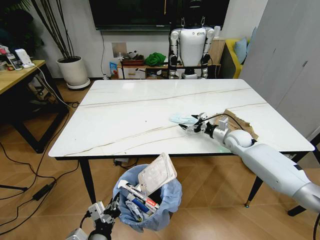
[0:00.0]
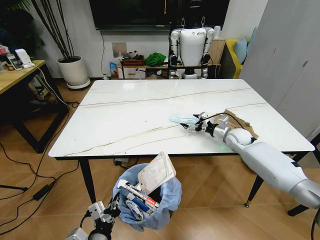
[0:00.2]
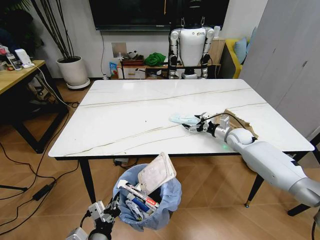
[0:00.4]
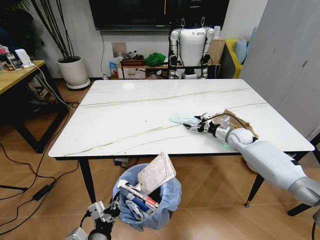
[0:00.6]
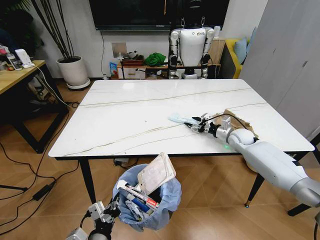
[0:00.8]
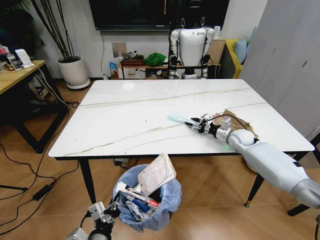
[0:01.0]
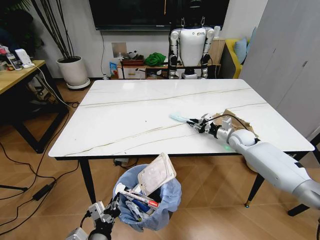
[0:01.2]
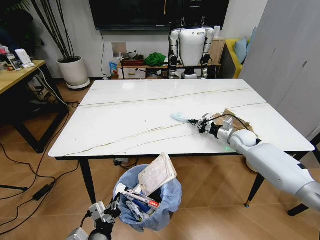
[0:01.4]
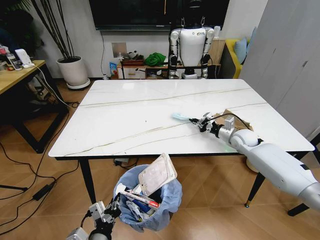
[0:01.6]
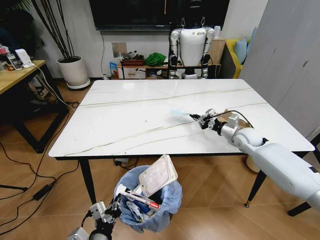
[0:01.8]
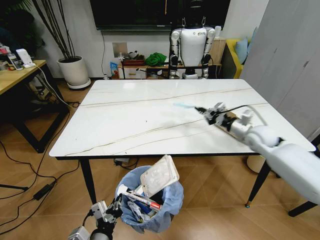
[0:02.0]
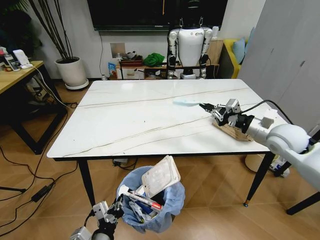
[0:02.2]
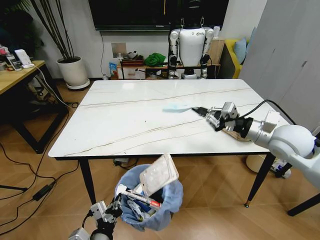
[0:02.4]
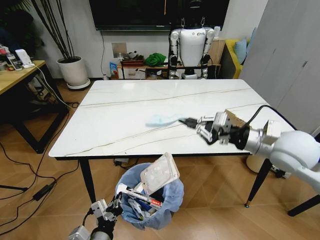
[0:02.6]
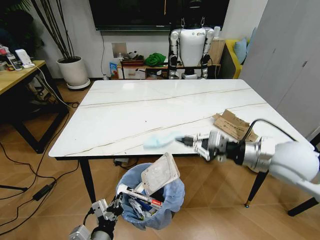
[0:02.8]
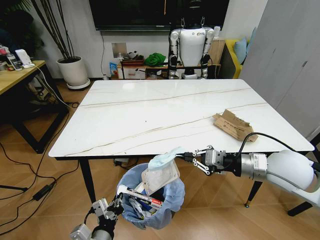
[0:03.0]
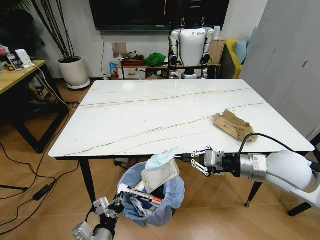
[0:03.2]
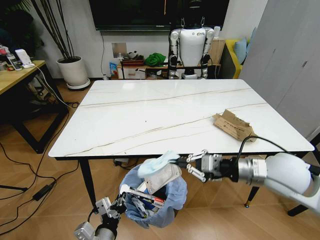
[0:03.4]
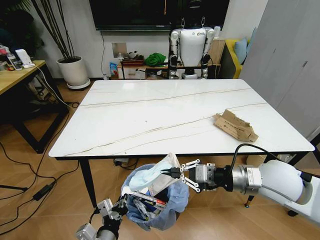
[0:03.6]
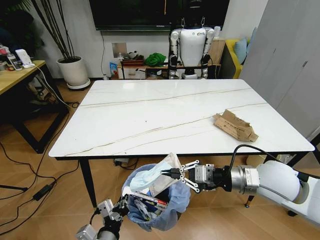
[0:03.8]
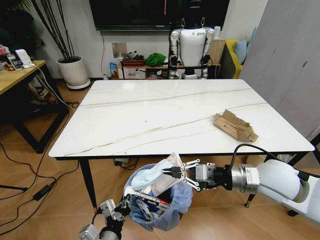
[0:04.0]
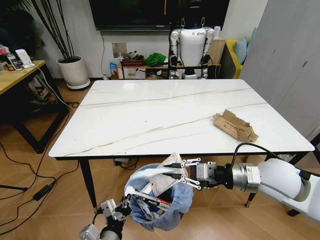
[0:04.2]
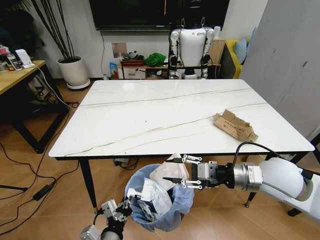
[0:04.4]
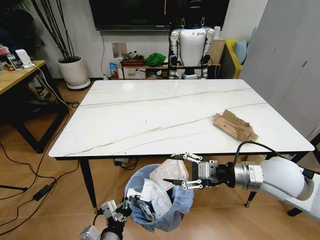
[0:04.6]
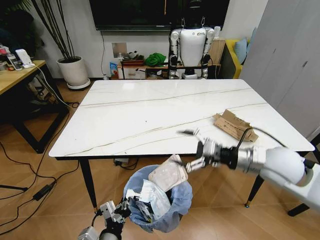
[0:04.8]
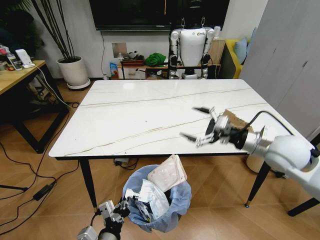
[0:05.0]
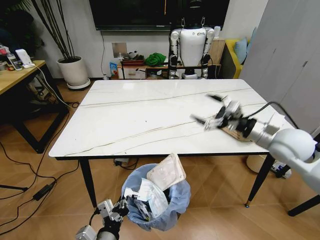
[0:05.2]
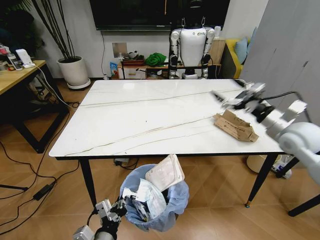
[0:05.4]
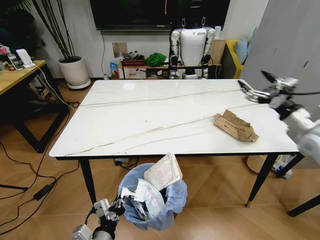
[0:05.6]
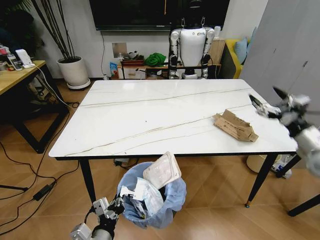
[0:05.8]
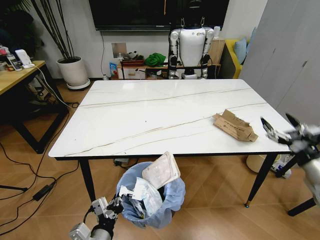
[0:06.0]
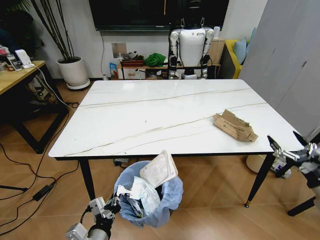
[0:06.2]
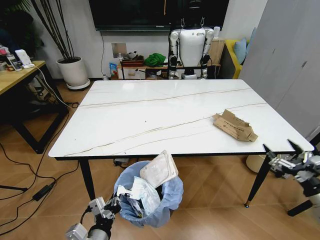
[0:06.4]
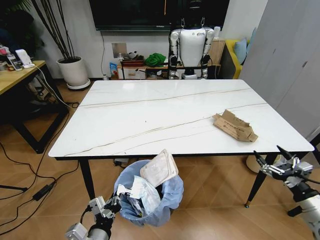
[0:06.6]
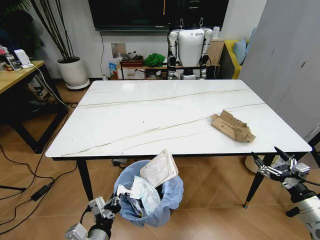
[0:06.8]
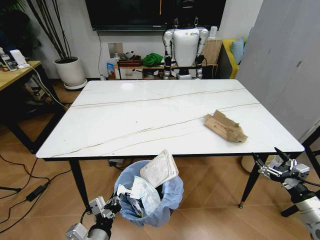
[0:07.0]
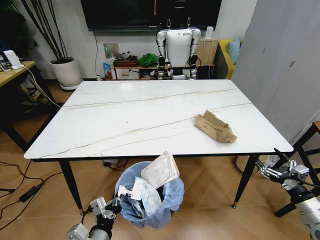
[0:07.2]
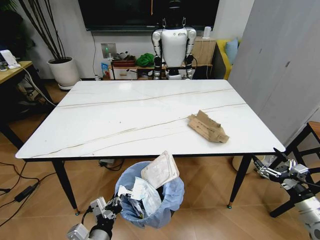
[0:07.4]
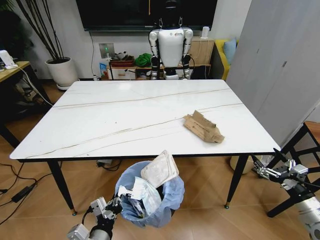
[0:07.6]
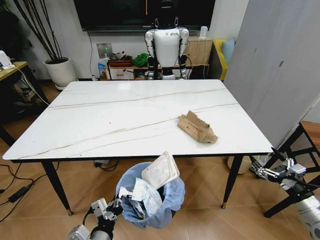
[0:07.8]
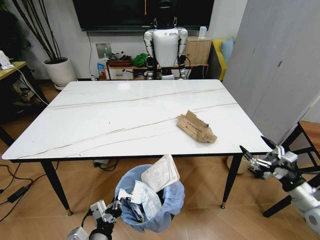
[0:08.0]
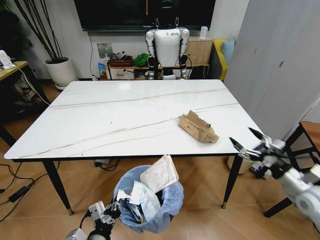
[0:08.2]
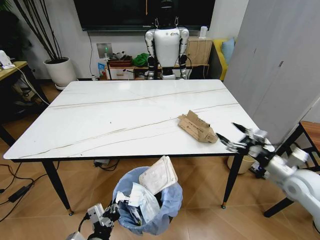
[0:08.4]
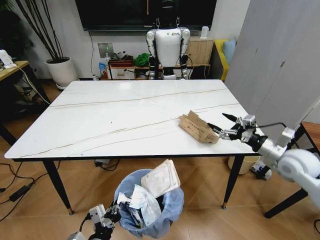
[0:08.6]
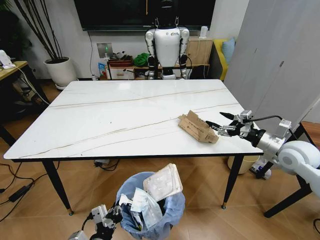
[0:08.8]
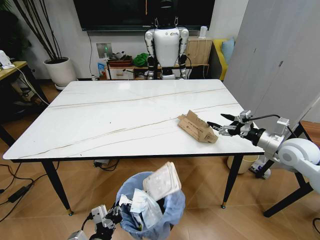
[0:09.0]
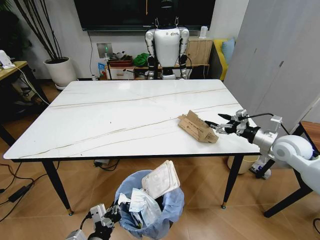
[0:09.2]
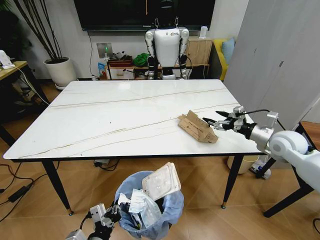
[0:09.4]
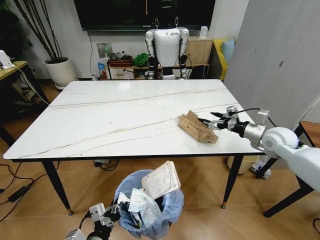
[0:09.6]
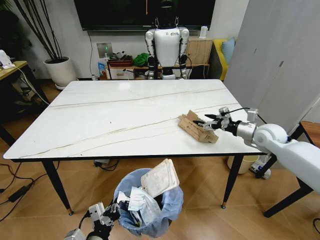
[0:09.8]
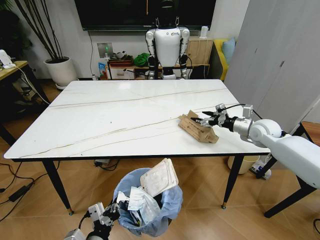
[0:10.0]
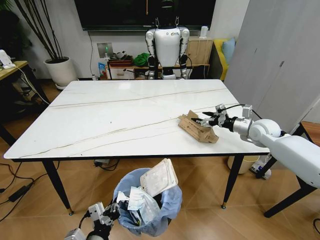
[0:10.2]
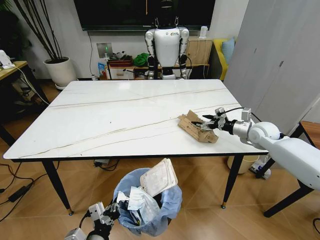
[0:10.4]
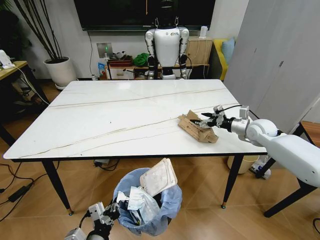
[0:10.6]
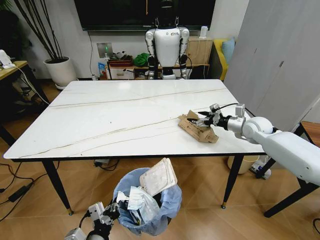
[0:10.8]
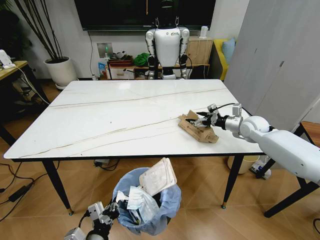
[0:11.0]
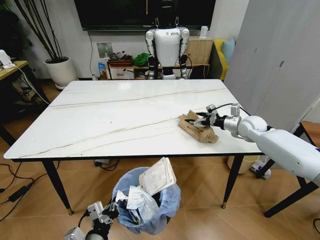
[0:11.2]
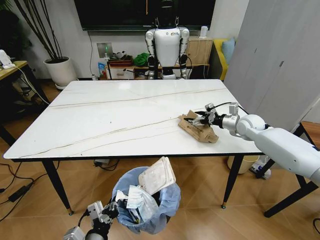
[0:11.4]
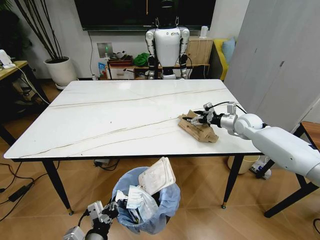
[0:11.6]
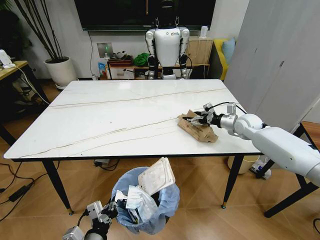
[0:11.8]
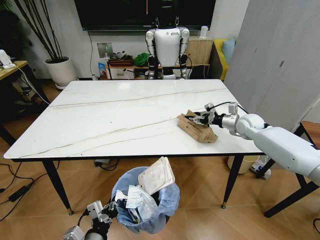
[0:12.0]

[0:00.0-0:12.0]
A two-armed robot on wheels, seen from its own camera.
Task of the whole recording: Pick up the trash bin and place the trash from the table into it.
0:00.0 to 0:01.6: The right gripper closes its fingers.
0:01.6 to 0:03.0: The right gripper goes some 25 cm backward and upward.
0:03.0 to 0:04.4: The right gripper opens.
0:04.4 to 0:06.0: The right gripper heads to the right, covering roughly 20 cm, and opens up.
0:06.0 to 0:07.6: The right gripper heads downward and backward, covering approximately 10 cm.
0:07.6 to 0:09.0: The right gripper is displaced forward and upward by roughly 25 cm.
0:09.0 to 0:10.4: The right gripper heads forward, covering approximately 10 cm.
0:10.4 to 0:12.0: The right gripper heads forward, covering roughly 5 cm, and closes its fingers.

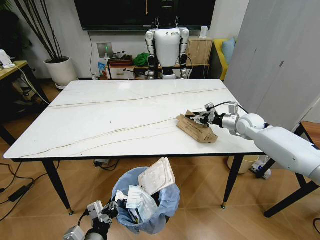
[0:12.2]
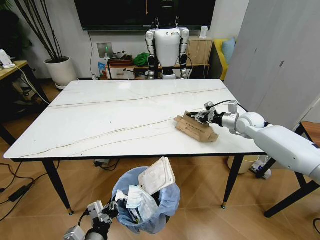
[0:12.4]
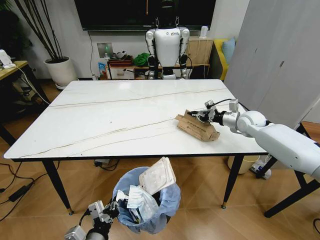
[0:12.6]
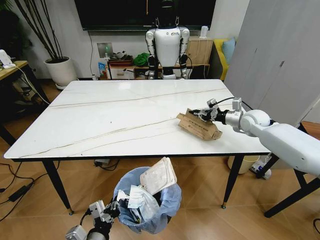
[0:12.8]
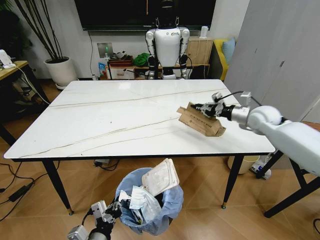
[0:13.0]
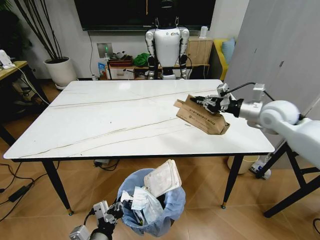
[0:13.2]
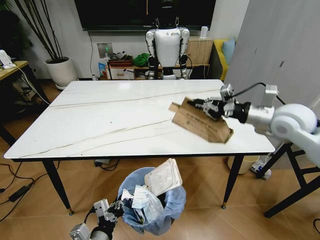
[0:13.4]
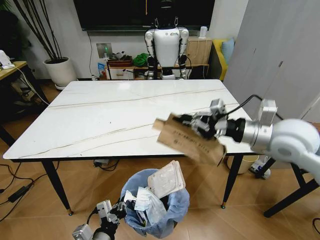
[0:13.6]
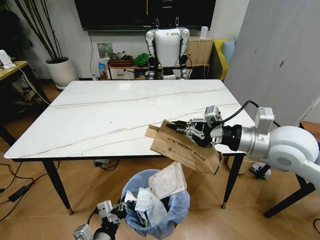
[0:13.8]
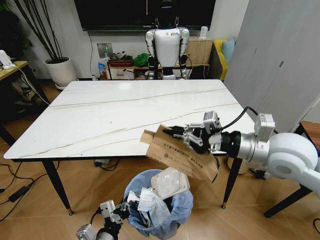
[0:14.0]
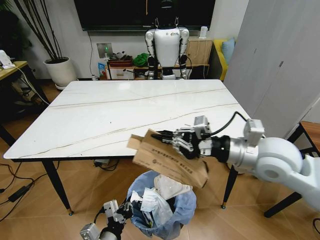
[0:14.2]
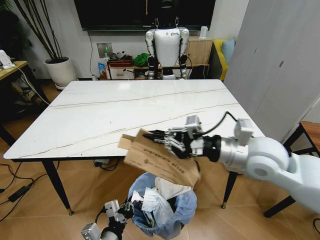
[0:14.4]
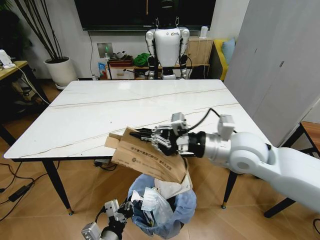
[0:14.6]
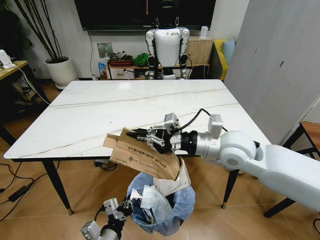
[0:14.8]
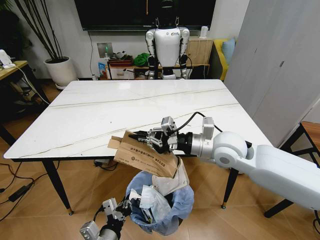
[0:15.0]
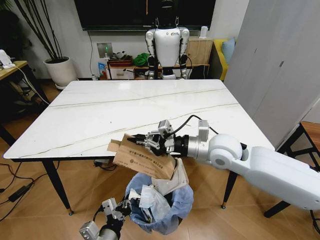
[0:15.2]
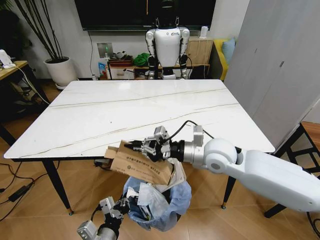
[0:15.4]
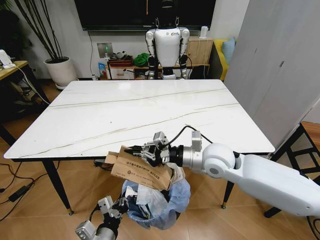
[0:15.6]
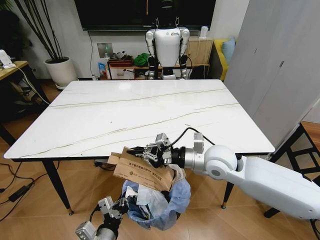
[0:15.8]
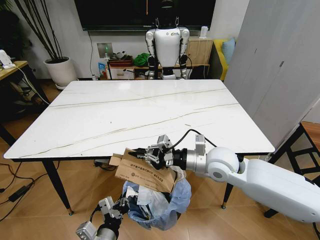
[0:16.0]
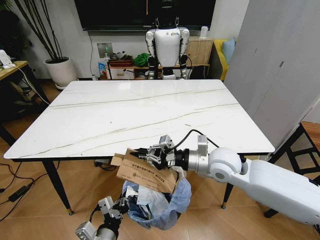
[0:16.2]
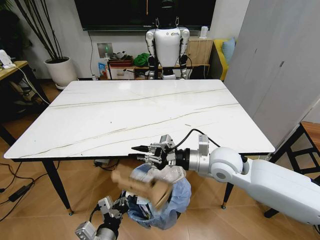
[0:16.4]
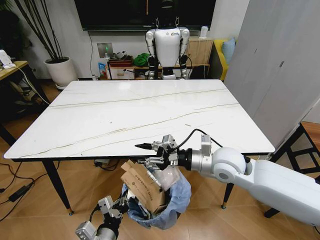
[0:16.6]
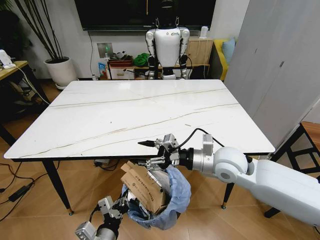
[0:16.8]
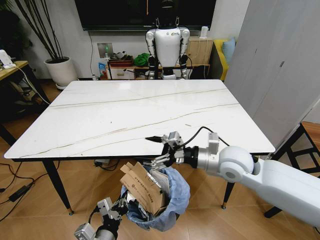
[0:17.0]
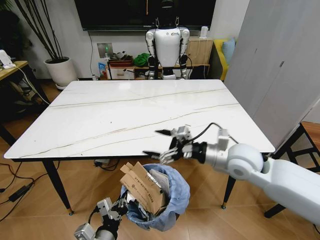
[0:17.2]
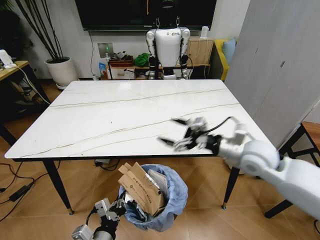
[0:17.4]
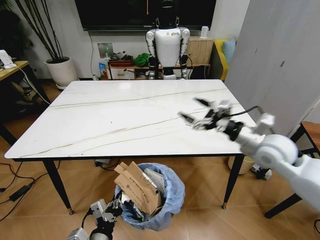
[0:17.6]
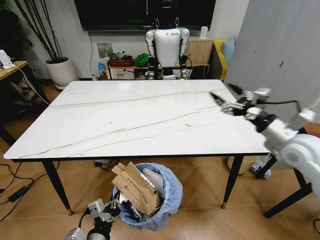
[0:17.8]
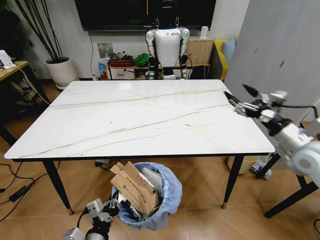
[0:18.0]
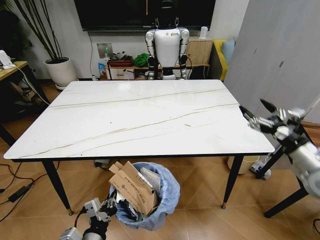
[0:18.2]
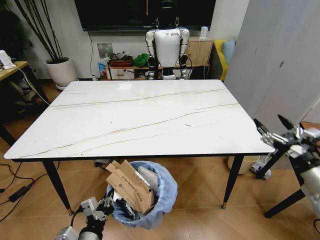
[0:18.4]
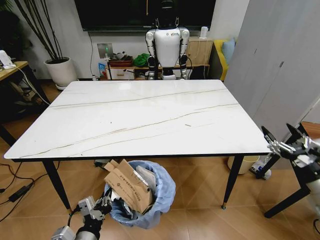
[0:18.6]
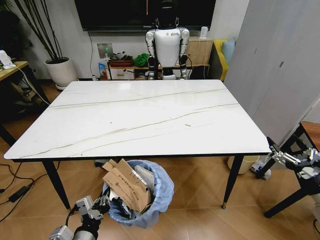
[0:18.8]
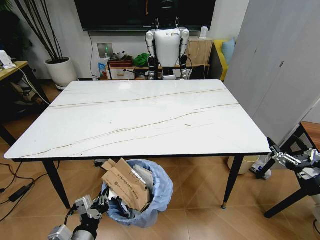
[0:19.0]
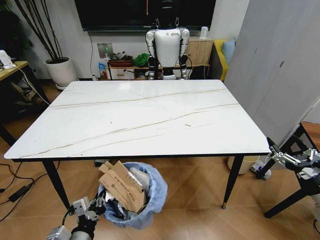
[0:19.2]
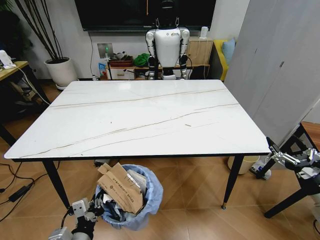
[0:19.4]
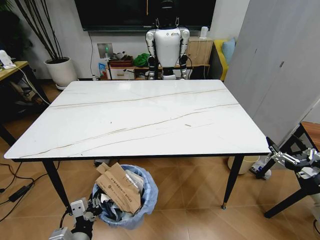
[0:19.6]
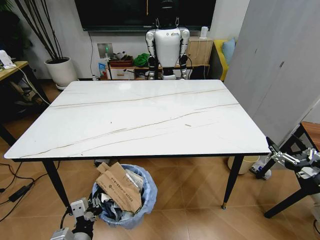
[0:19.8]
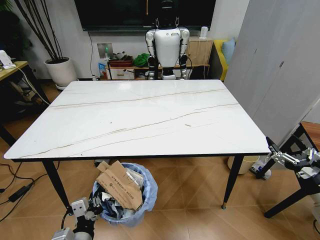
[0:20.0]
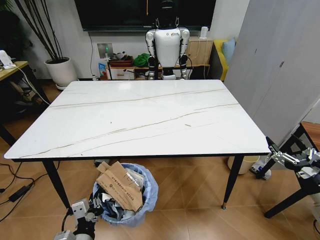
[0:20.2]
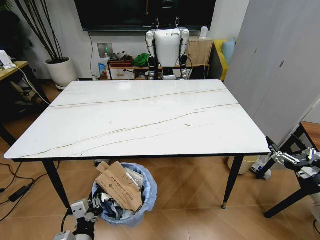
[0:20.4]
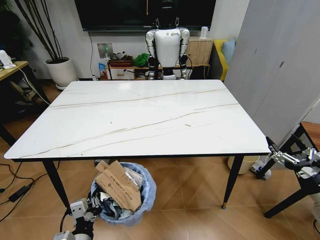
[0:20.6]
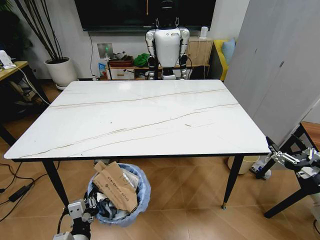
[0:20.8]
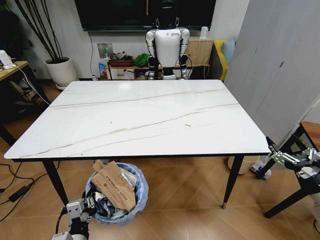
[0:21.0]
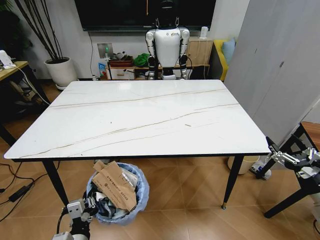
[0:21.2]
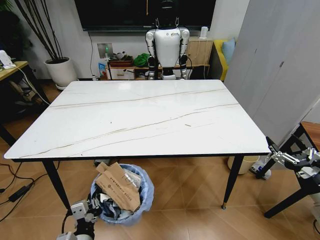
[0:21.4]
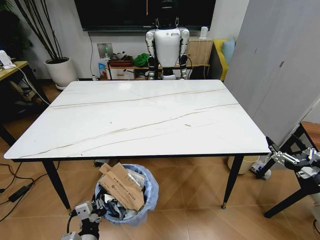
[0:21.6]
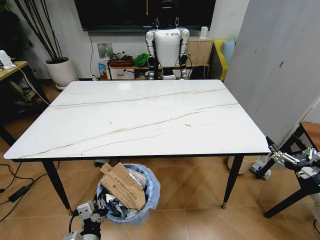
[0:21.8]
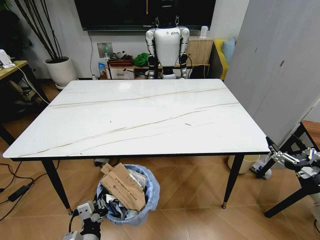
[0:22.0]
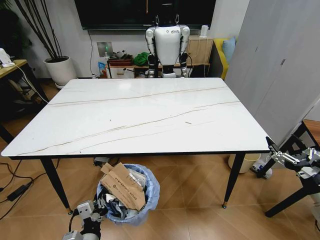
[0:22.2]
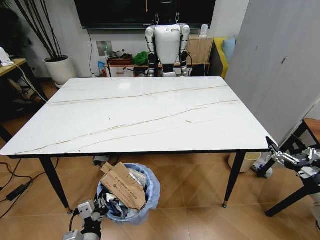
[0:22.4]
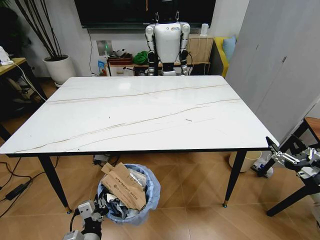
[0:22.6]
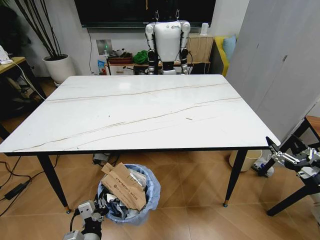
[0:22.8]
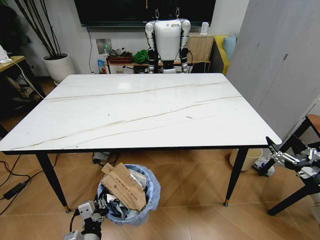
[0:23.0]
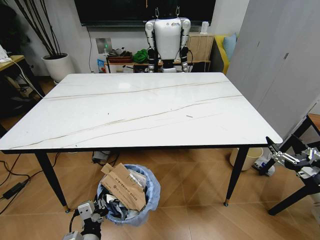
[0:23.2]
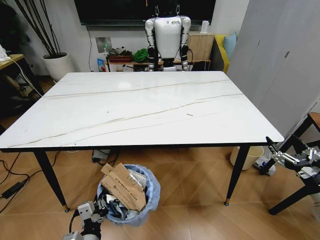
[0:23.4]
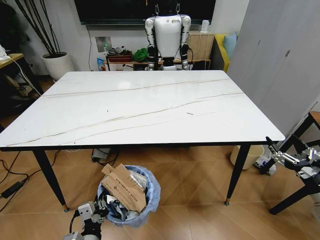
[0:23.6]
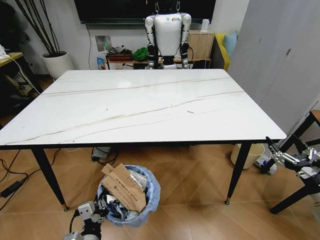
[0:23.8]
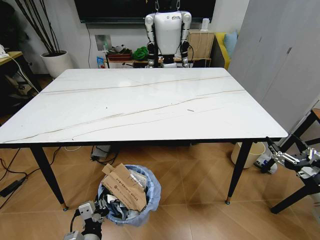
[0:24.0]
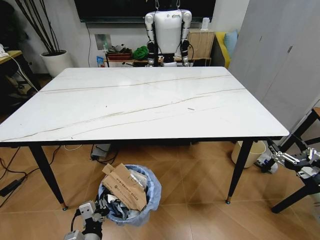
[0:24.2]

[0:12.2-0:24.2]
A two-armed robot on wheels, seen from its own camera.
Task of the whole recording: Pick up the trash bin and place the trash from the table into it.
0:12.2 to 0:13.8: The right gripper shifts some 30 cm backward and upward.
0:13.8 to 0:15.2: The right gripper heads to the left, downward and forward, covering approximately 15 cm.
0:15.2 to 0:16.6: The right gripper opens.
0:16.6 to 0:18.2: The right gripper moves to the right, approximately 25 cm, and opens up.
0:18.2 to 0:19.8: The right gripper heads backward and downward, covering approximately 10 cm.
0:19.8 to 0:22.6: There are only small adjustments of the grippers.
